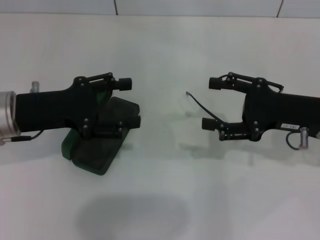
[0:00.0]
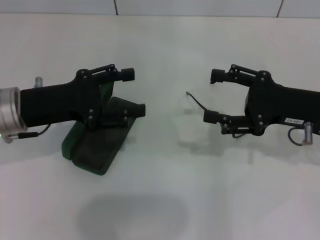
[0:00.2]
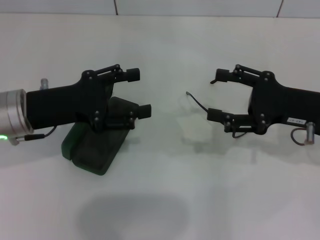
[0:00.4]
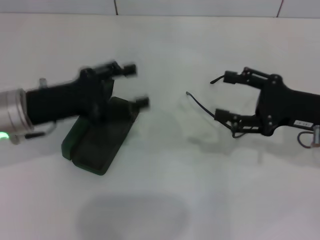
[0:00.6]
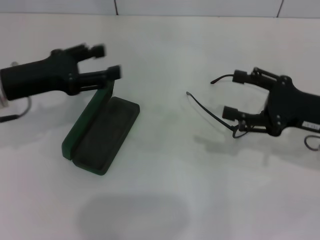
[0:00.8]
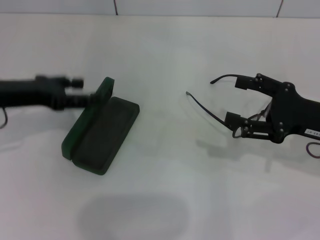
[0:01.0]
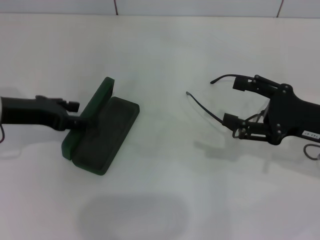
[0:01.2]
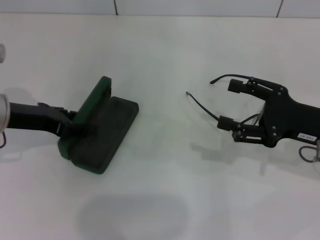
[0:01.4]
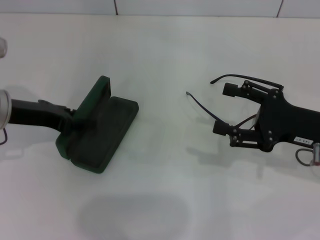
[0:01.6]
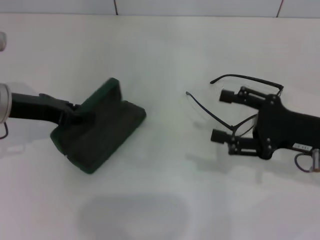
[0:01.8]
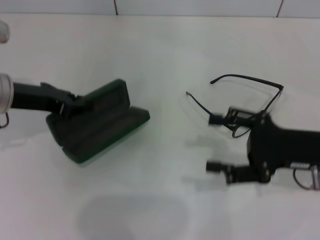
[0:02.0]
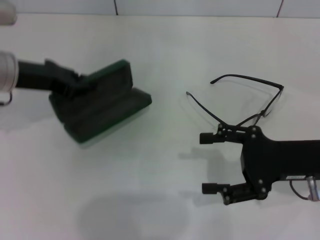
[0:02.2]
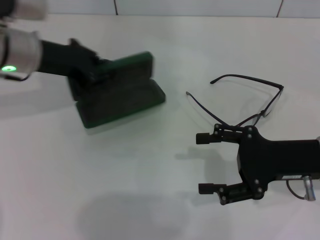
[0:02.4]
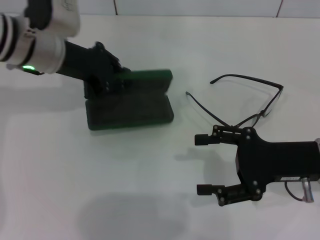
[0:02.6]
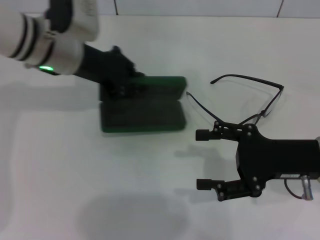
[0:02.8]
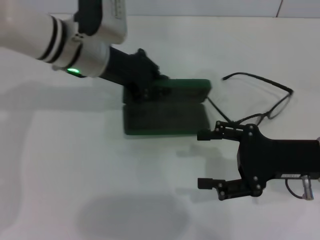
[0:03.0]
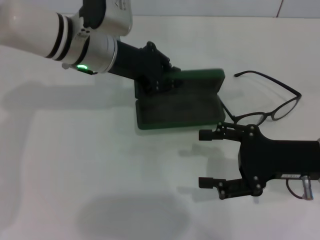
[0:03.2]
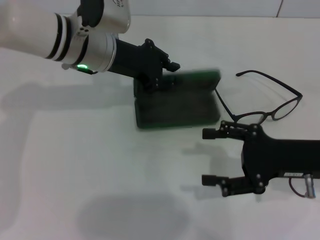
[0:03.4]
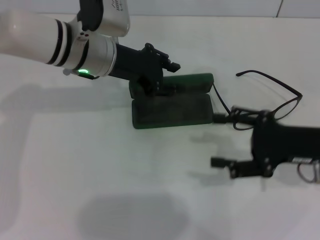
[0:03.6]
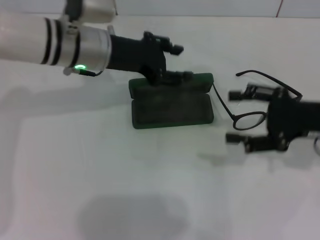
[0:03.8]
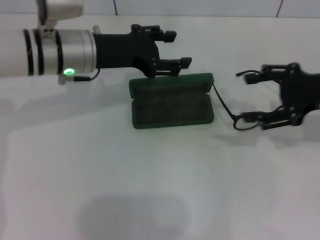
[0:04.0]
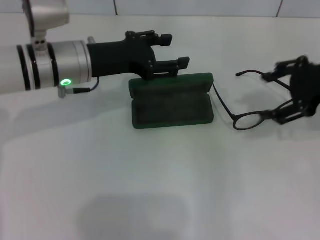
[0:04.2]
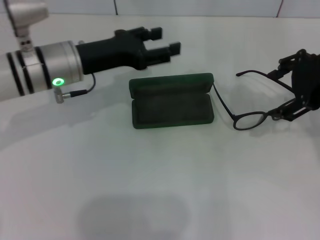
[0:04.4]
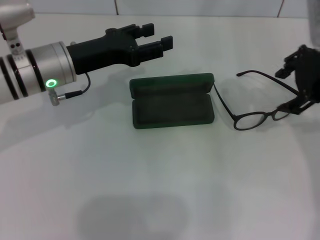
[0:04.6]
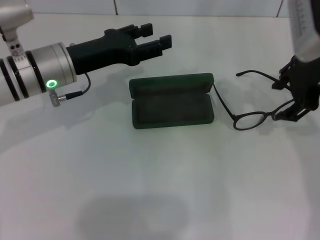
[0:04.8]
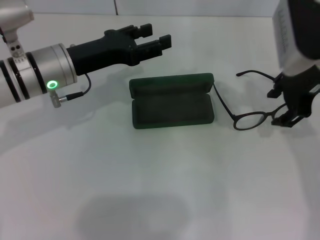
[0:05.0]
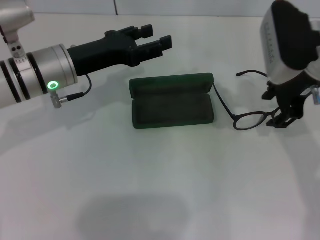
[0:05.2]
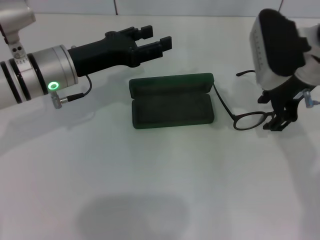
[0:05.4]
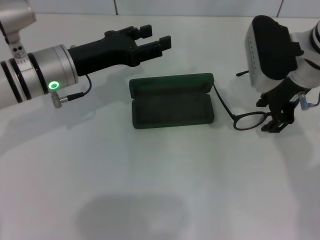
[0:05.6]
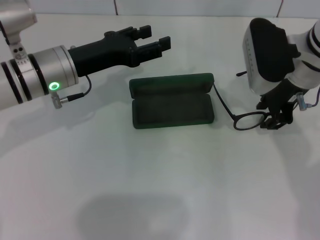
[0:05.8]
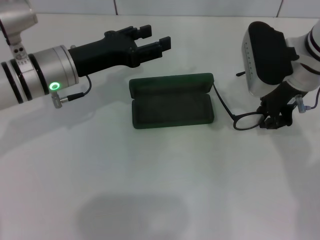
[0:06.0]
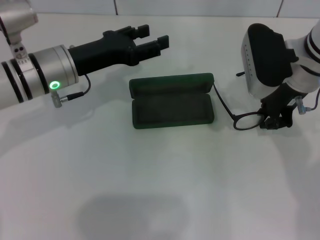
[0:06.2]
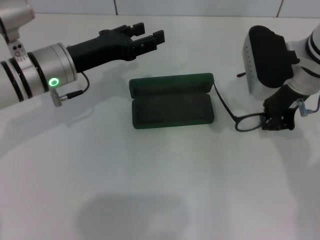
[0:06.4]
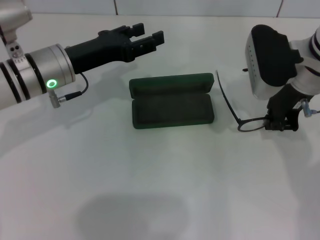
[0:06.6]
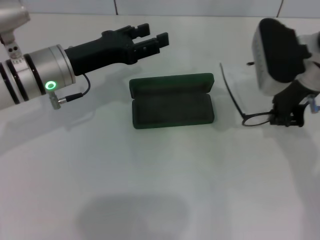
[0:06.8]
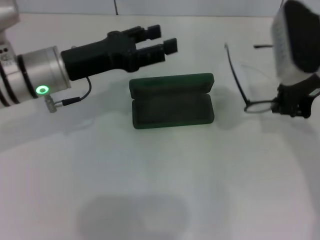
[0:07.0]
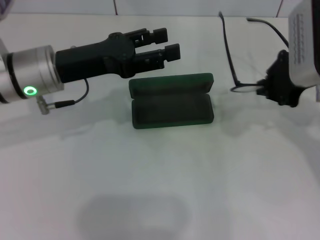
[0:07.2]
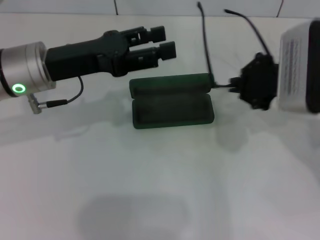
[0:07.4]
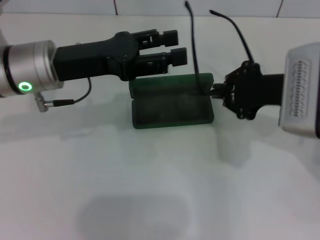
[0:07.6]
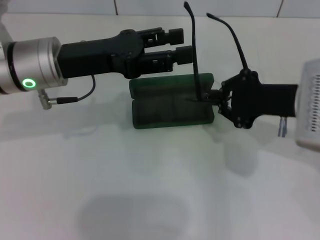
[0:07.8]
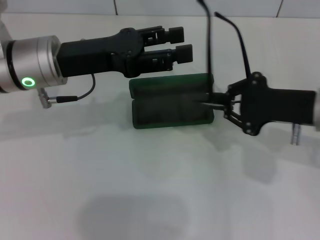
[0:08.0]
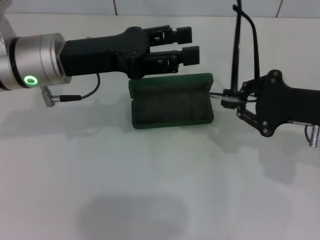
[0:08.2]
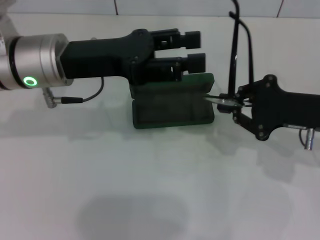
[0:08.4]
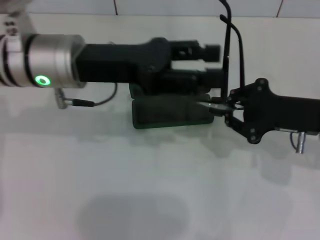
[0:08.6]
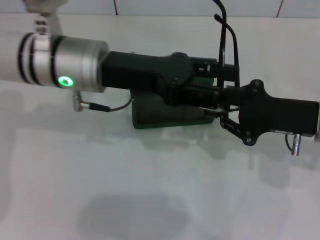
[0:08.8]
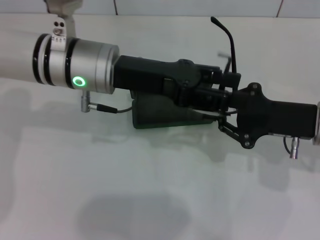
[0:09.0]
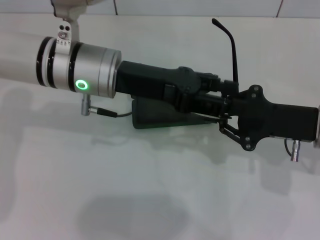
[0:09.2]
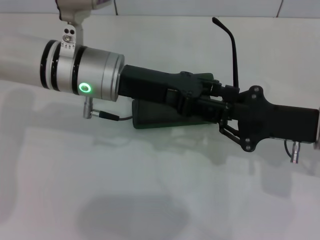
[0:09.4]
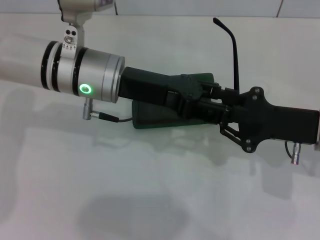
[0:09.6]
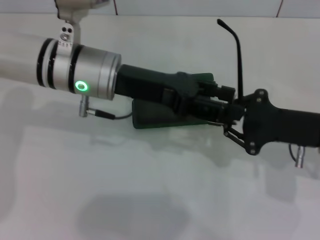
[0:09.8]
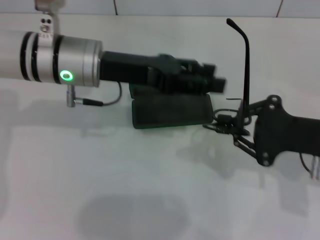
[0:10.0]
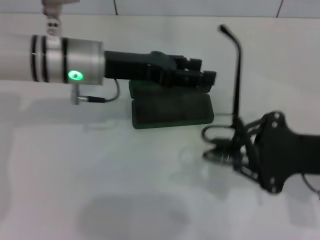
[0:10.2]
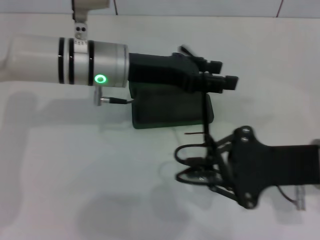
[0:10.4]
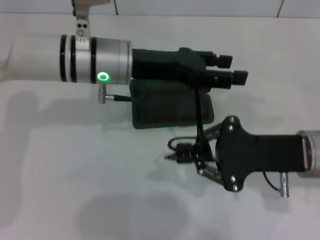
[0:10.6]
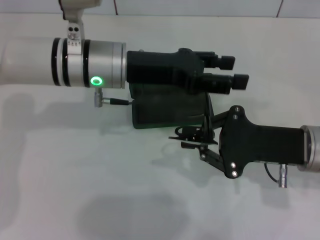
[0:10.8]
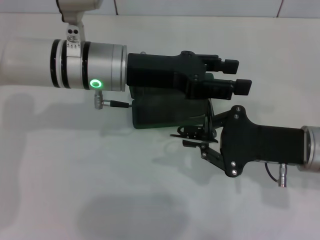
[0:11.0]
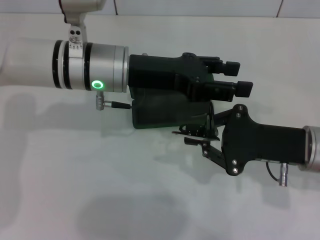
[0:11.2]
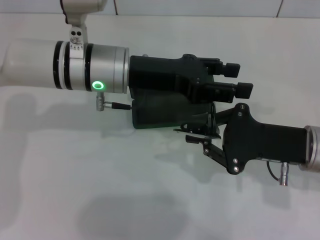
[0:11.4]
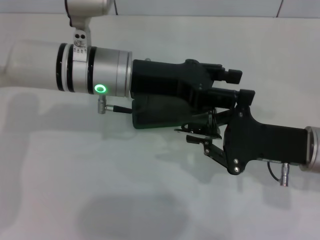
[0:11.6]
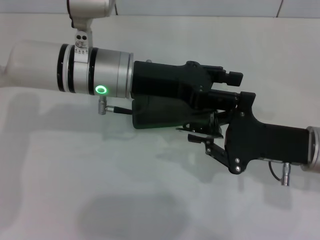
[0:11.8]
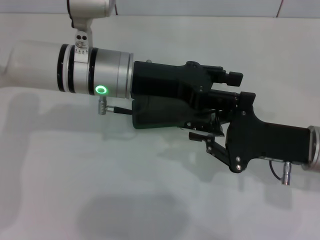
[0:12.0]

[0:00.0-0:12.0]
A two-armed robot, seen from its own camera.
Step, 0:00.0 to 0:01.6: Grab the glasses case with your left hand.
Step, 0:02.0 to 0:03.4: Place the glasses case in the center of the table with your left hand.
Step, 0:03.6 to 0:06.4: Grab the eyeglass frame with your right hand.
0:01.6 to 0:03.0: The left gripper goes about 15 cm to the right and forward, and closes its fingers.
0:03.0 to 0:04.4: The right gripper goes some 15 cm upward and forward. The left gripper shifts by roughly 5 cm, and opens its fingers.
0:04.4 to 0:06.0: The right gripper is displaced downward and to the left by some 10 cm, and closes its fingers.
0:06.0 to 0:07.6: The right gripper shifts about 5 cm backward, and closes up.
0:07.6 to 0:09.0: The left gripper goes about 5 cm to the right, while the right gripper changes place by roughly 5 cm.
0:09.0 to 0:10.4: The right gripper ends up roughly 5 cm from where it was.

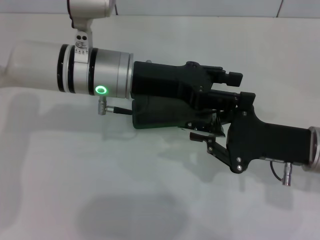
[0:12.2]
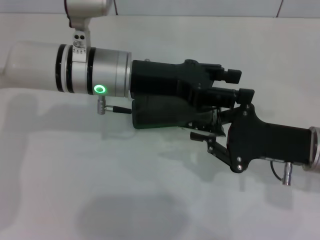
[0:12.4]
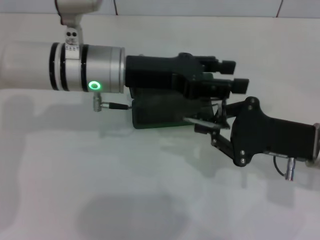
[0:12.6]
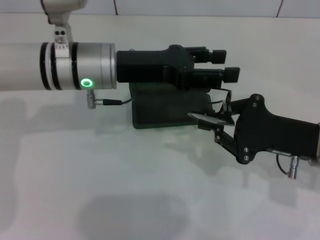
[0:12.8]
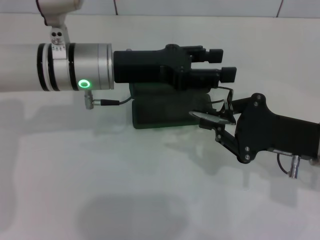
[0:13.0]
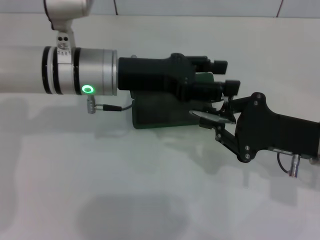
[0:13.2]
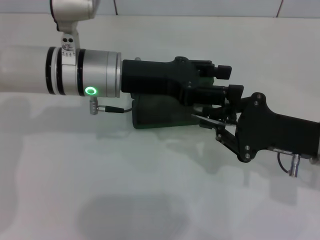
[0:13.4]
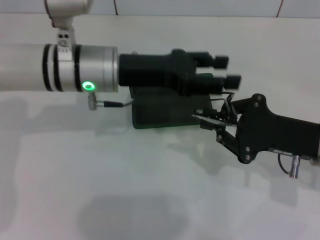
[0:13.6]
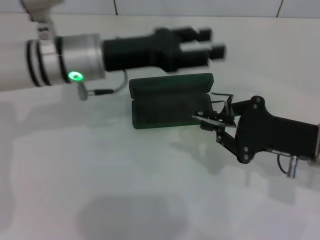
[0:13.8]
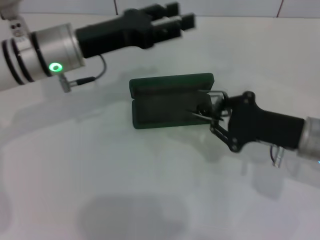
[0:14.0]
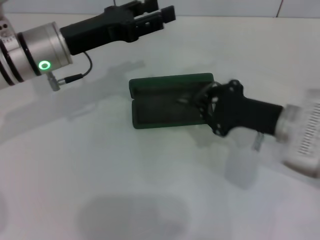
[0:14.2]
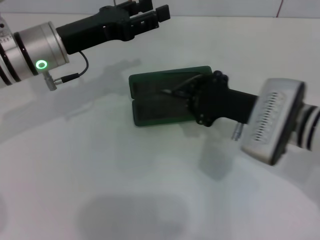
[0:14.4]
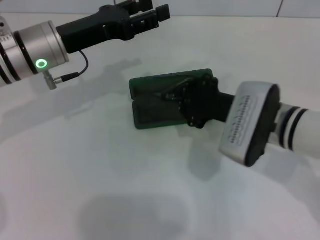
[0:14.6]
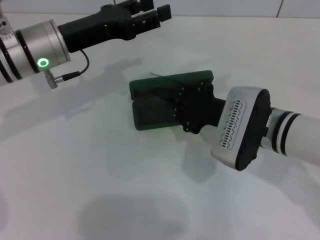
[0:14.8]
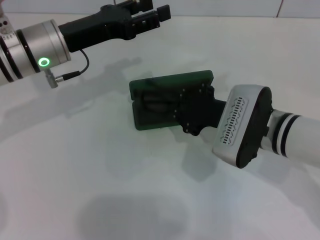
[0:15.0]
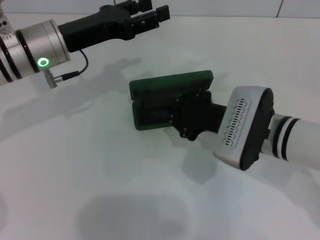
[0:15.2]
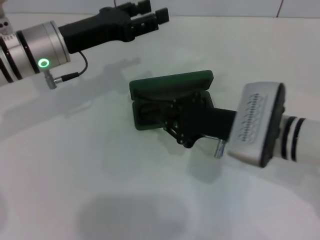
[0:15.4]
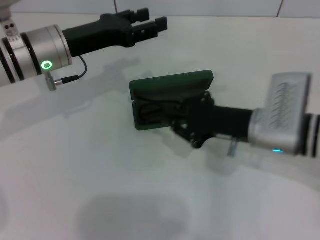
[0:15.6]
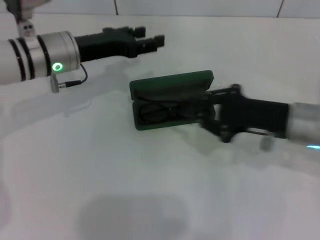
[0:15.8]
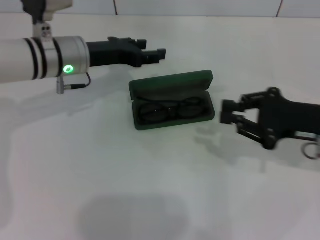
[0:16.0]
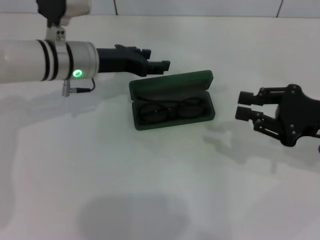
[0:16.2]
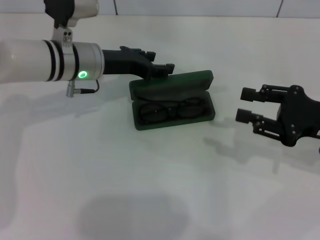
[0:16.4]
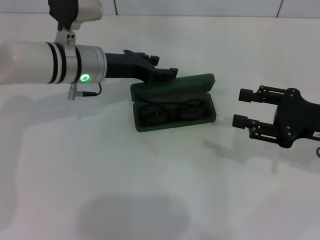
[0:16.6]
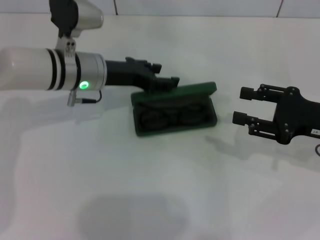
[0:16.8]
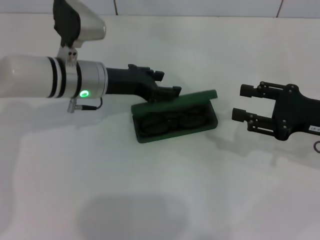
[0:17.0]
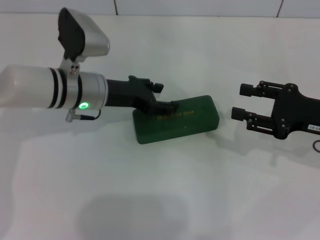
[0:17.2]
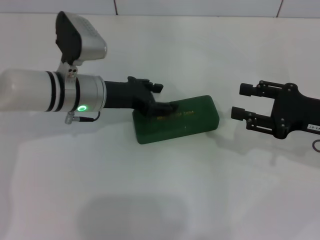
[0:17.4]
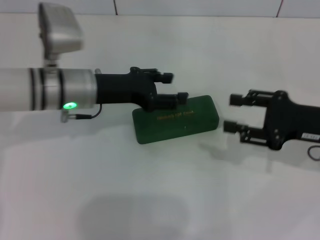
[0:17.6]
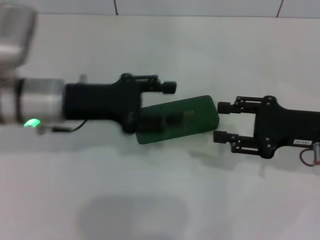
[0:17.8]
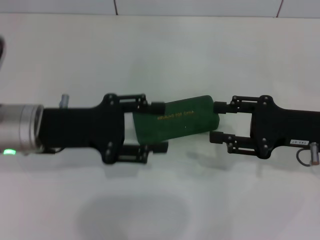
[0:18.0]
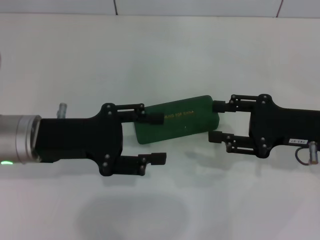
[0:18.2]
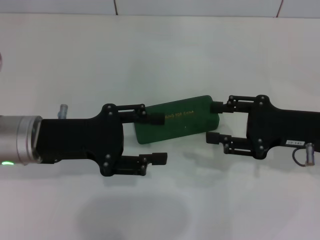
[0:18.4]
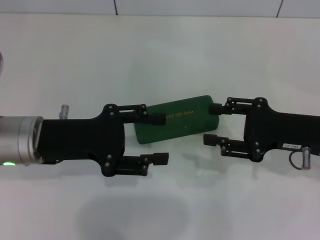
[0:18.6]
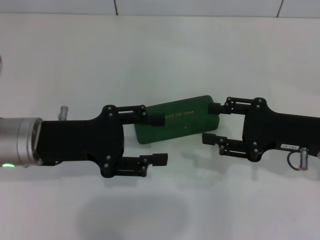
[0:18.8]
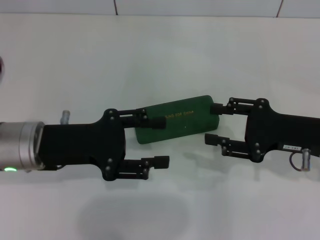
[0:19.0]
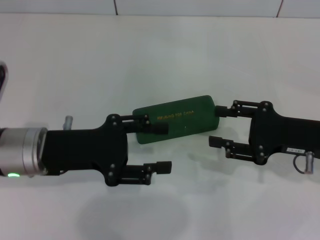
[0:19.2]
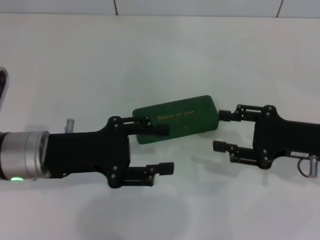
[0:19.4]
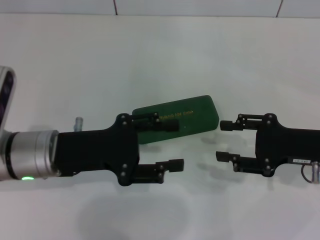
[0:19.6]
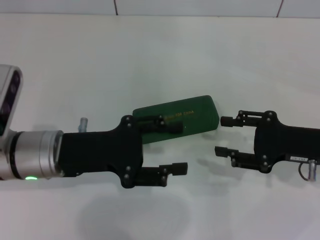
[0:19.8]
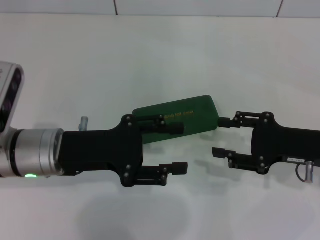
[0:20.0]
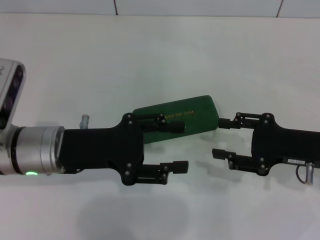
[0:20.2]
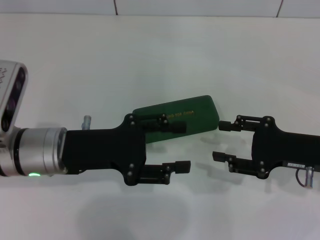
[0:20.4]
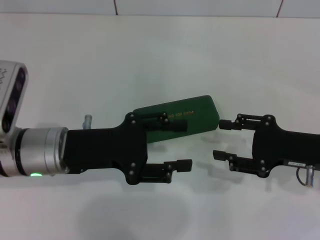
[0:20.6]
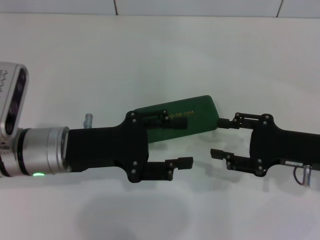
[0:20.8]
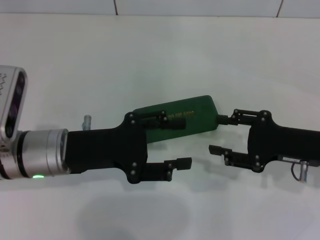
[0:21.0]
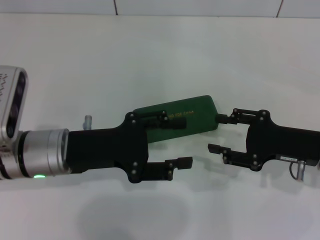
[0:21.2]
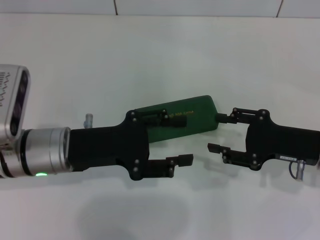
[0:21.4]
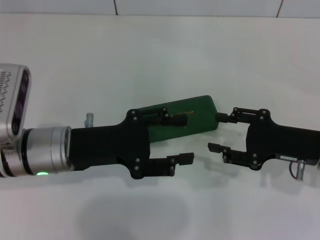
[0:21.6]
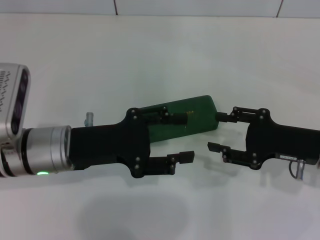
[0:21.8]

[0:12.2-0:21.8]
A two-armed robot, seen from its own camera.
Step, 0:13.6 to 0:15.2: Put the glasses into the case with your right hand.
Step, 0:15.4 to 0:17.0: Close the glasses case with your left hand.
0:13.8 to 0:15.4: The left gripper travels to the left by some 5 cm. The right gripper goes roughly 10 cm to the left.
0:15.4 to 0:17.0: The right gripper heads to the right, covering about 15 cm, and opens its fingers. The left gripper moves roughly 5 cm.
0:17.0 to 0:18.6: The left gripper moves backward and to the left, approximately 15 cm.
0:18.6 to 0:21.8: The grippers make only small movements.
